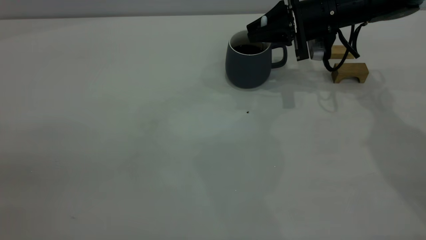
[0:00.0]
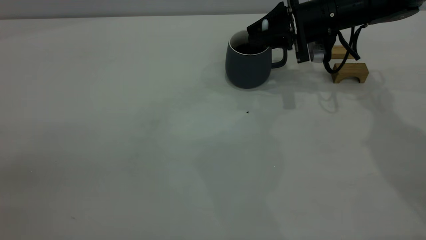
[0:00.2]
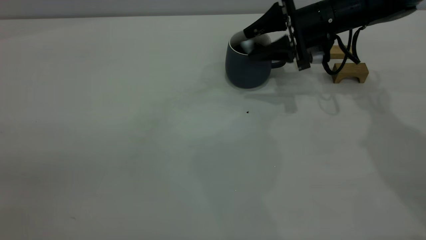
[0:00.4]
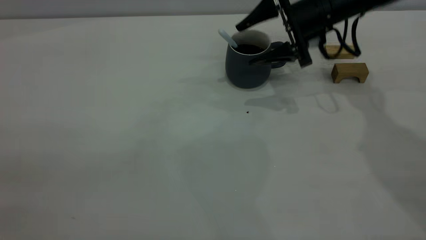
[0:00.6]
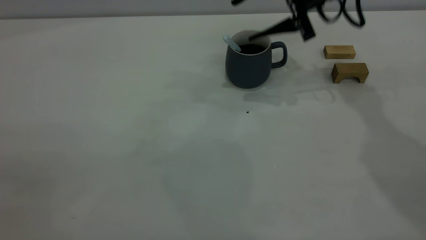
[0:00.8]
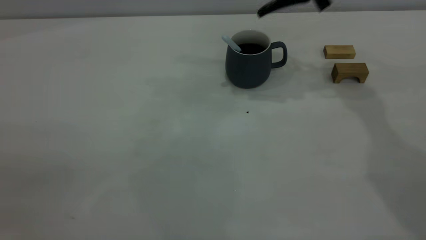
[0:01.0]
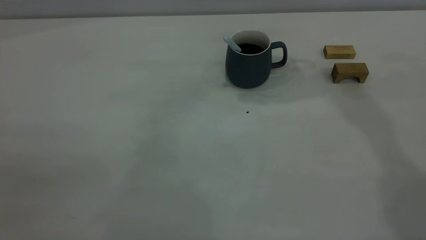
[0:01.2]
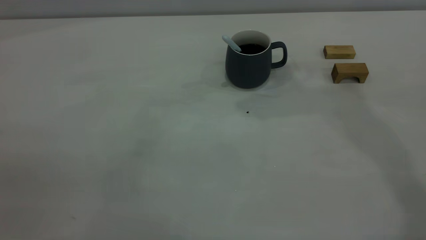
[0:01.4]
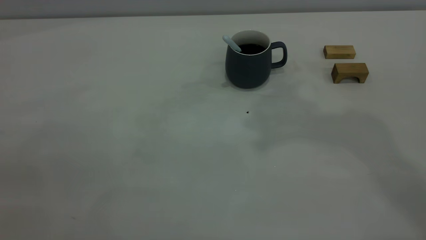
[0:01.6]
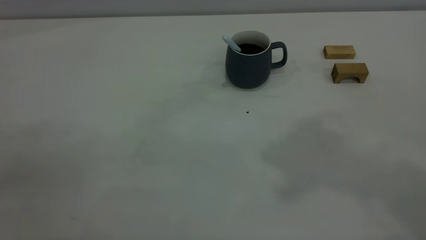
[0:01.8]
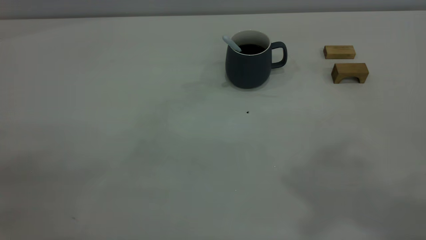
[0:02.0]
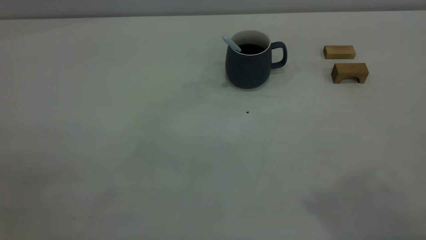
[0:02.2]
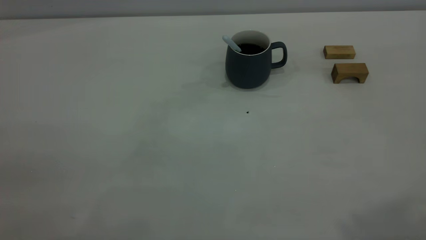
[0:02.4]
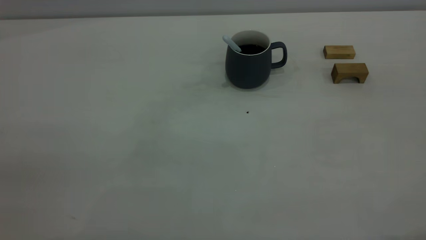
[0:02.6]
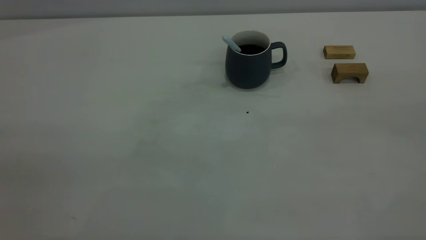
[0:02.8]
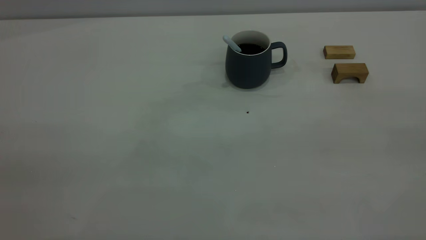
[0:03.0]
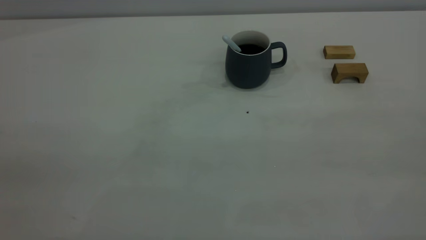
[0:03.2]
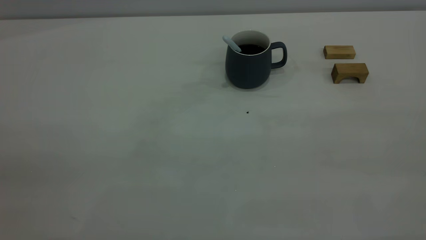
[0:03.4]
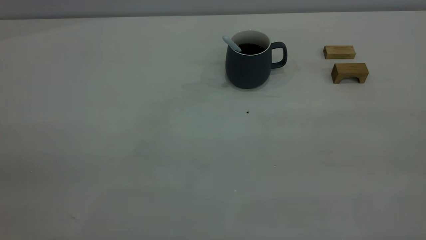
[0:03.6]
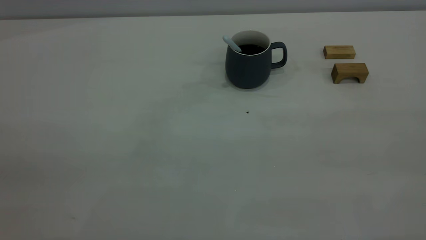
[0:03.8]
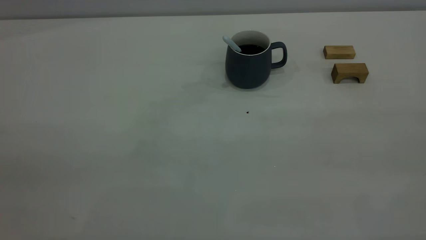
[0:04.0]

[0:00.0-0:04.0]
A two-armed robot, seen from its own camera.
0:00.0 to 0:01.4: The right gripper goes roughly 35 cm upward, and opens, then closes again.
